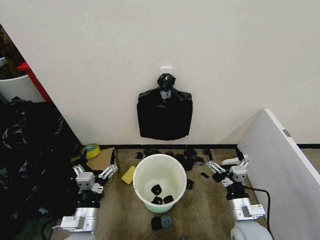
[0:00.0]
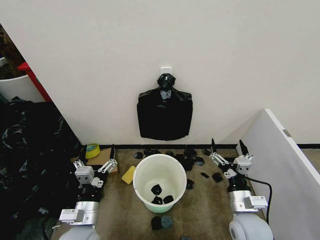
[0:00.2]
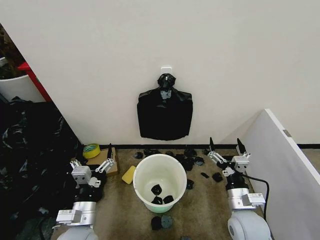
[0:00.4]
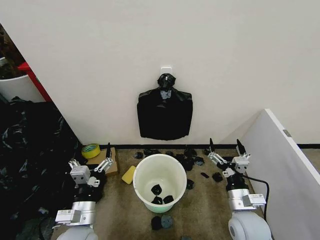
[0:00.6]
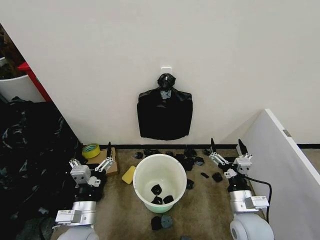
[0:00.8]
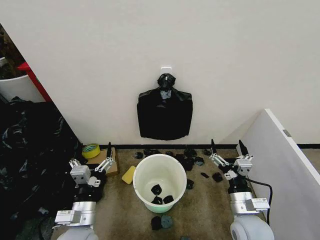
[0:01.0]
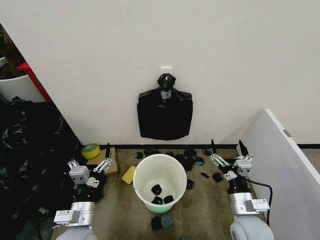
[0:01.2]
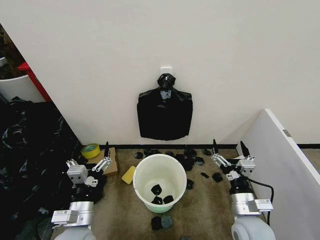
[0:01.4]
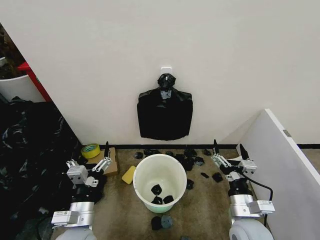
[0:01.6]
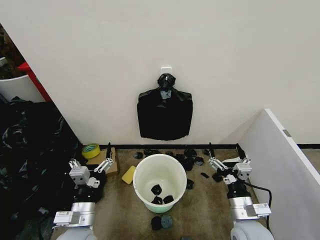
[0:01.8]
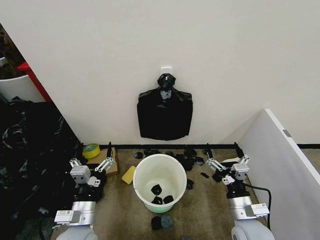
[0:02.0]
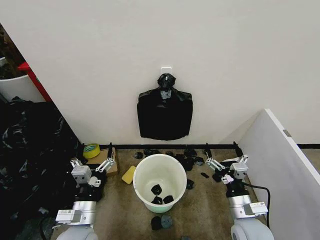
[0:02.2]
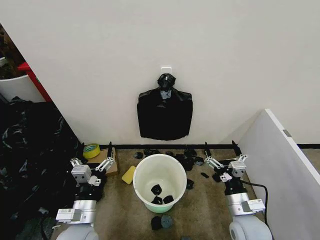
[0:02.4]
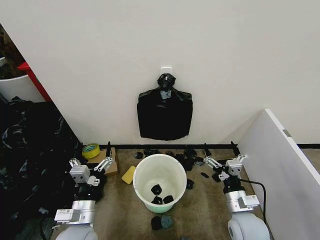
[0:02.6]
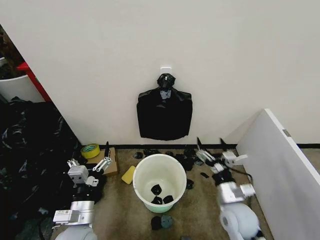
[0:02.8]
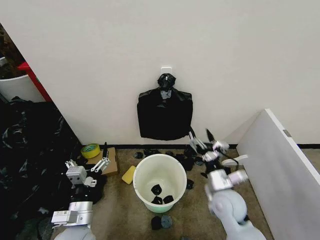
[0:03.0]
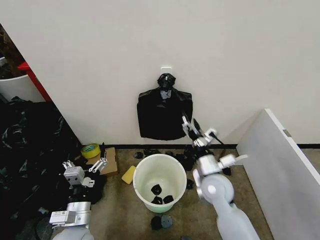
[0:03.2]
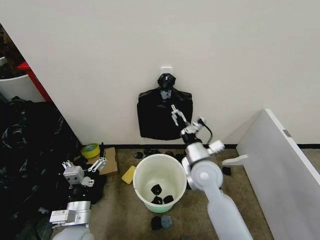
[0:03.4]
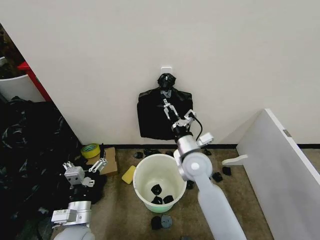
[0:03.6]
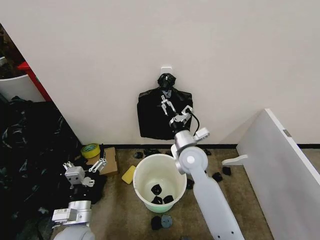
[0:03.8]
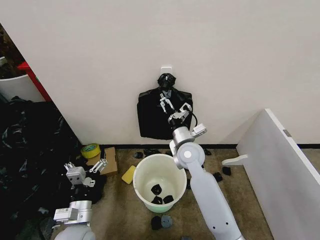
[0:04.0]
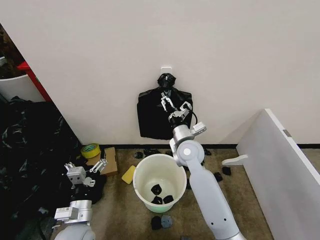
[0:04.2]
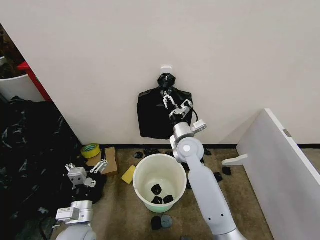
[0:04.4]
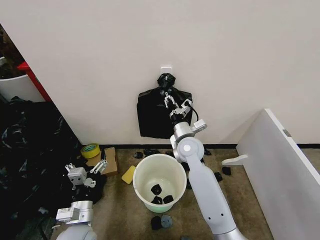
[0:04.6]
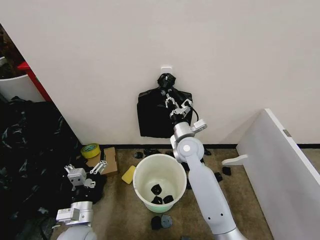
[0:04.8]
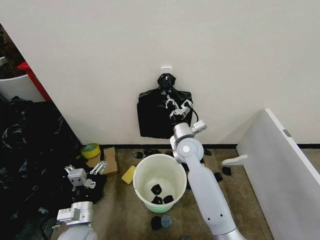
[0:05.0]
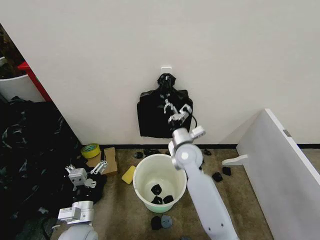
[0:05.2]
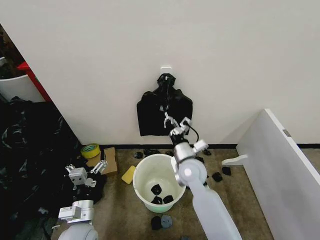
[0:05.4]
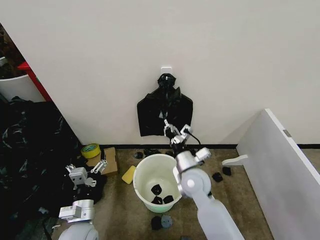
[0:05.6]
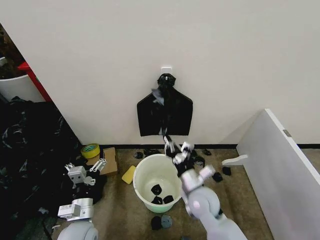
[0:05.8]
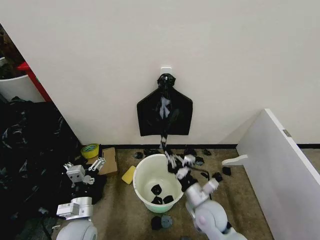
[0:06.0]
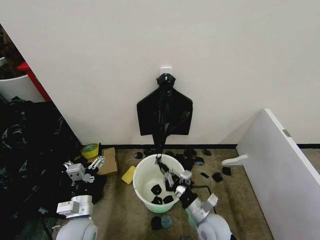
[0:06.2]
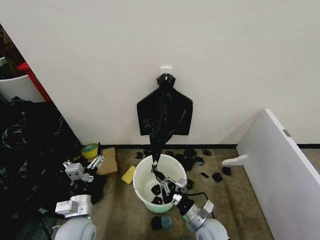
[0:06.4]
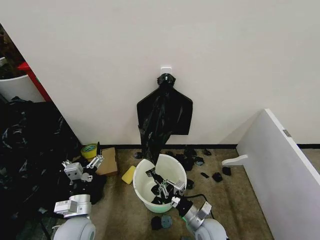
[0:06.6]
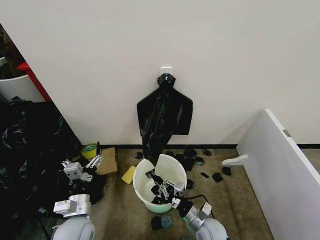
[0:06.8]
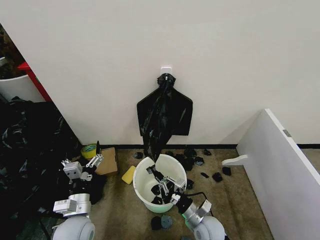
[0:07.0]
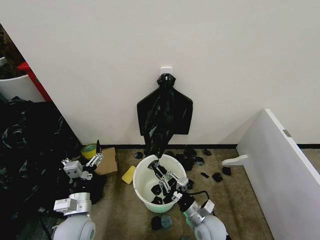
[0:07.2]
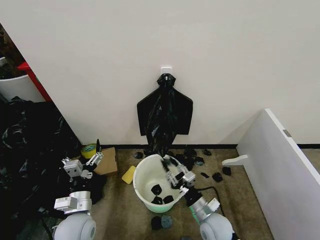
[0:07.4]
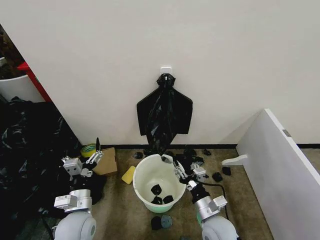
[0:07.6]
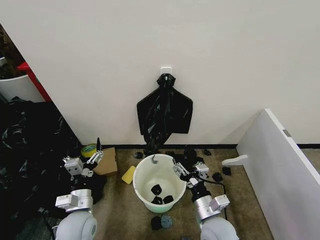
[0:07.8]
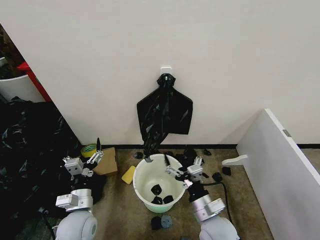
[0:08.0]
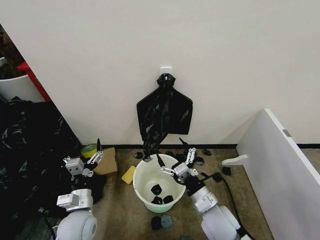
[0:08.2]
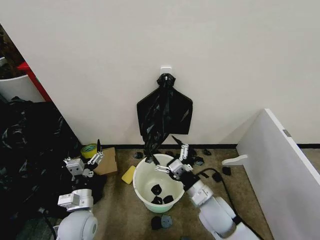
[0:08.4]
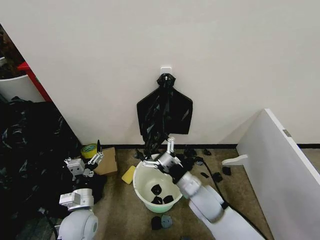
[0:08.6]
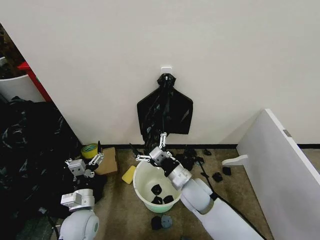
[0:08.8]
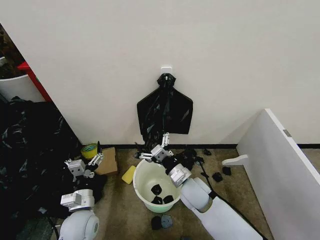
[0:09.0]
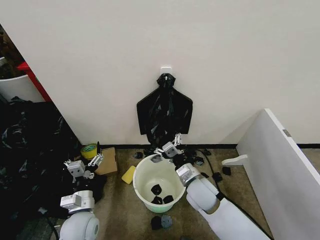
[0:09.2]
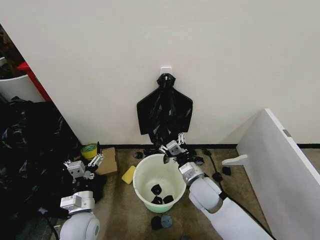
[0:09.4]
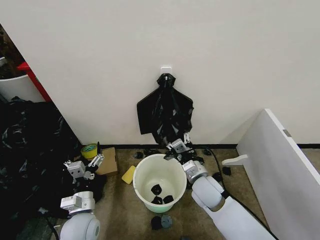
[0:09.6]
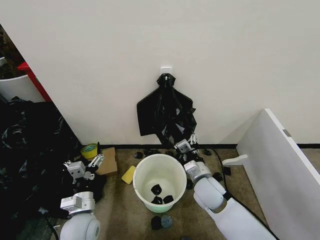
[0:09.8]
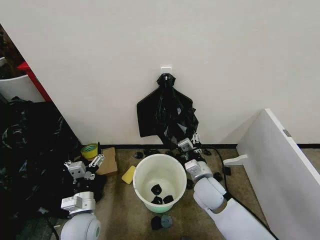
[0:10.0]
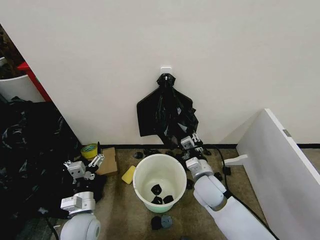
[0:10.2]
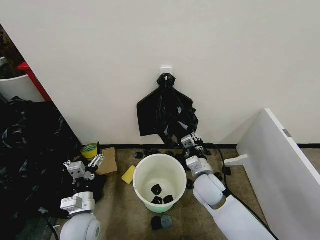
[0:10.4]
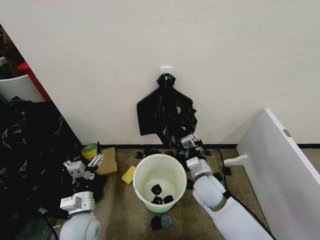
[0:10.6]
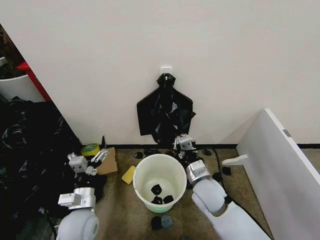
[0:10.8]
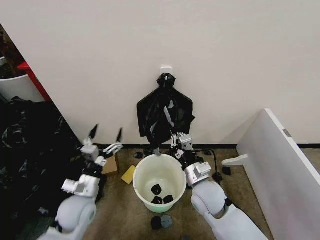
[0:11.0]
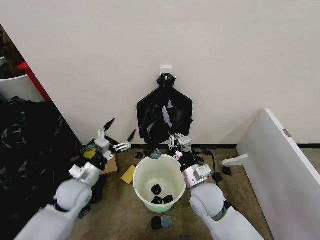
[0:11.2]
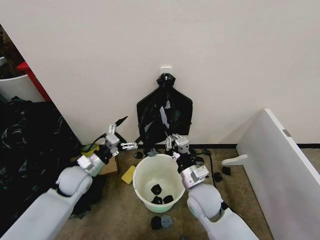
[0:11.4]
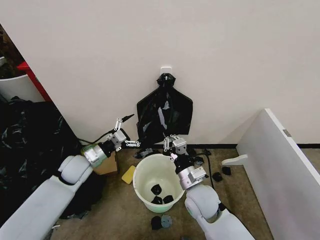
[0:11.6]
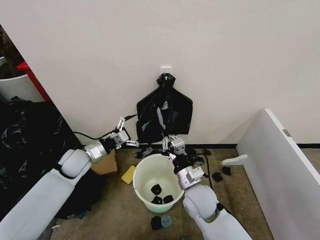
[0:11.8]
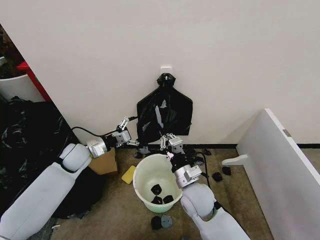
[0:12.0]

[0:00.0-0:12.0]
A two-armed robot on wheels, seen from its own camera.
Task of the whole recording: Place the garbage bag over the trash bin.
0:01.6 to 0:03.0: The right gripper shifts some 10 cm forward.
0:03.0 to 0:04.4: The right gripper is displaced forward, to the left and upward by some 20 cm, and closes its fingers.
0:04.4 to 0:06.0: The right gripper heads backward and downward, covering approximately 20 cm, and closes up.
0:06.0 to 0:07.6: The right gripper goes downward and returns, approximately 10 cm each way, and opens.
0:07.6 to 0:09.0: The right gripper goes some 15 cm forward, to the left and upward, and opens up.
0:09.0 to 0:10.4: The right gripper closes its fingers.
0:10.4 to 0:12.0: The right gripper moves roughly 5 cm; the left gripper heads forward, covering about 20 cm.

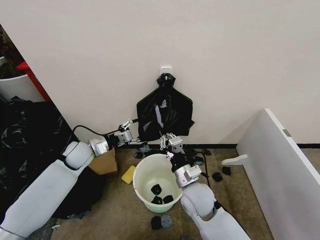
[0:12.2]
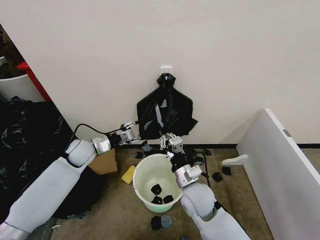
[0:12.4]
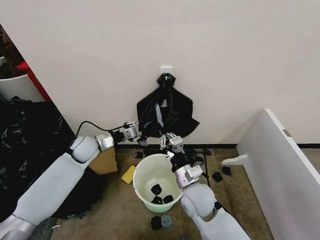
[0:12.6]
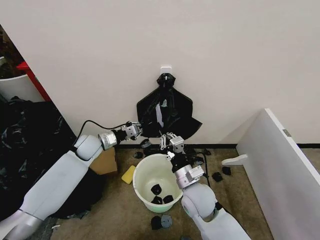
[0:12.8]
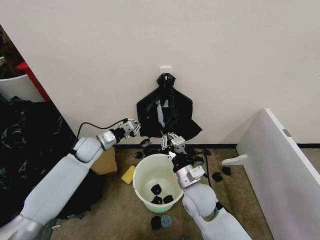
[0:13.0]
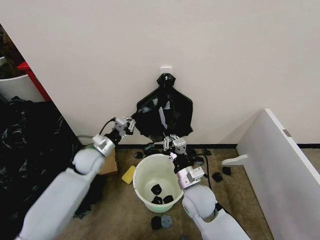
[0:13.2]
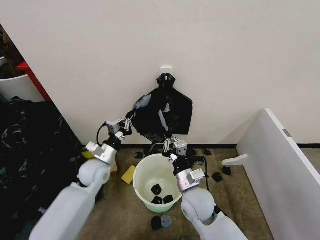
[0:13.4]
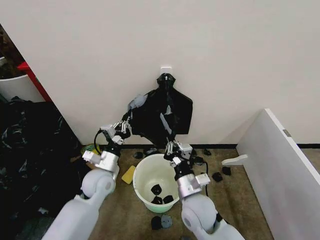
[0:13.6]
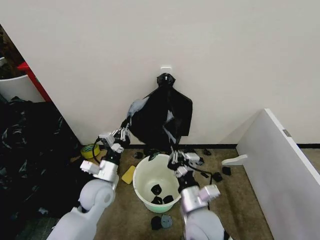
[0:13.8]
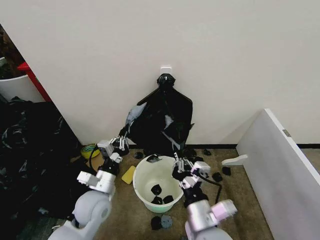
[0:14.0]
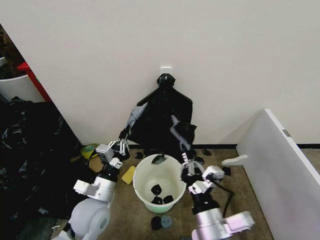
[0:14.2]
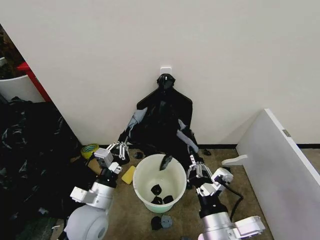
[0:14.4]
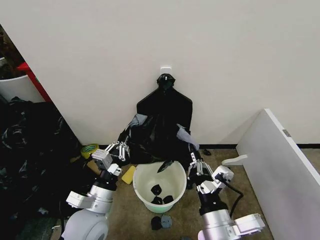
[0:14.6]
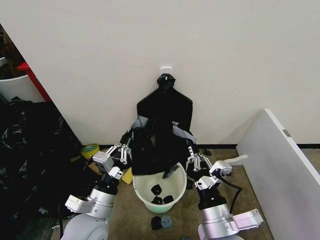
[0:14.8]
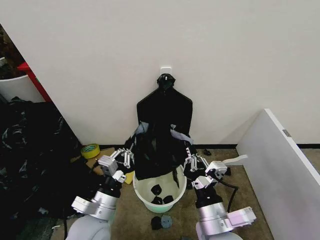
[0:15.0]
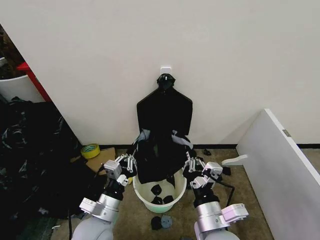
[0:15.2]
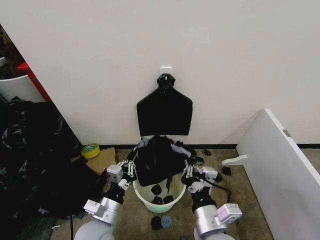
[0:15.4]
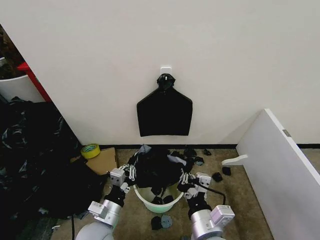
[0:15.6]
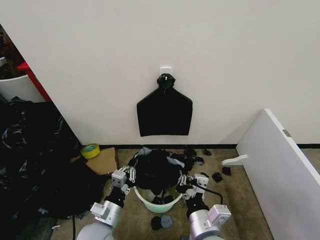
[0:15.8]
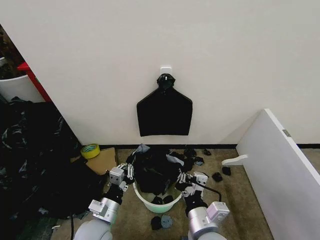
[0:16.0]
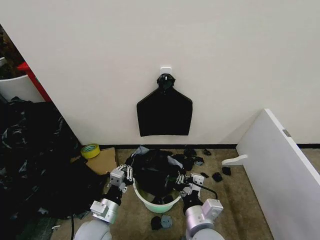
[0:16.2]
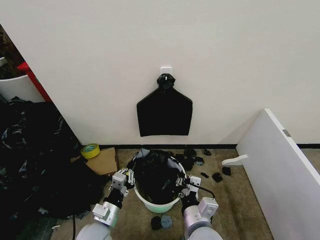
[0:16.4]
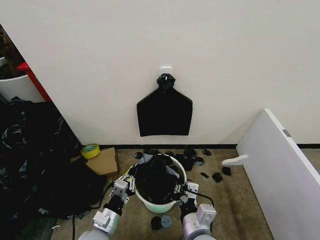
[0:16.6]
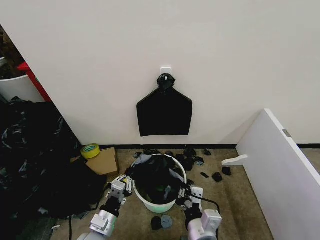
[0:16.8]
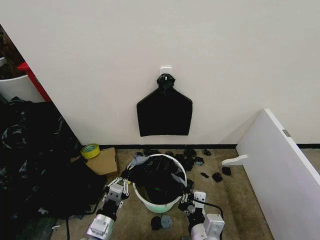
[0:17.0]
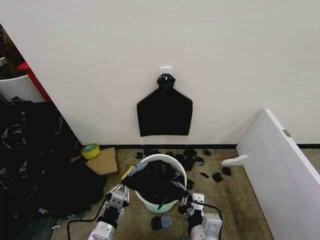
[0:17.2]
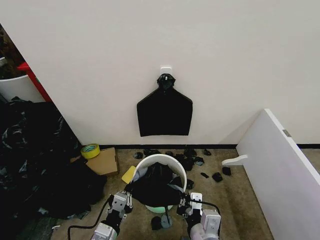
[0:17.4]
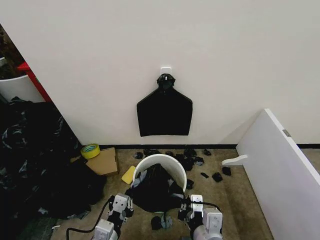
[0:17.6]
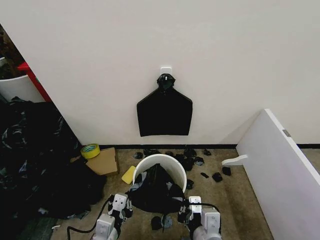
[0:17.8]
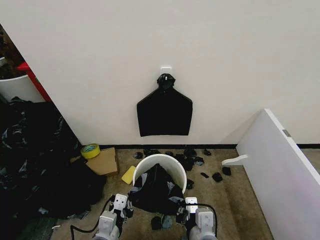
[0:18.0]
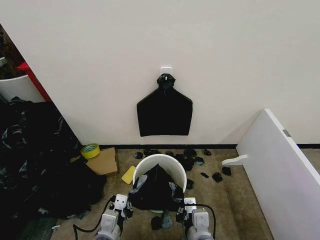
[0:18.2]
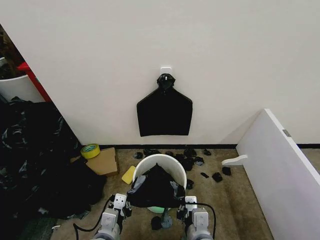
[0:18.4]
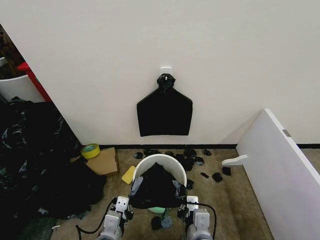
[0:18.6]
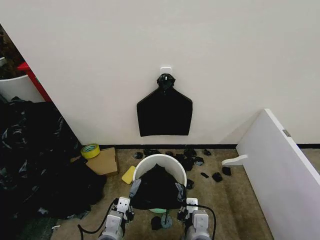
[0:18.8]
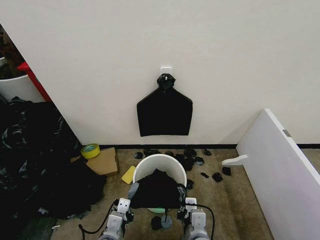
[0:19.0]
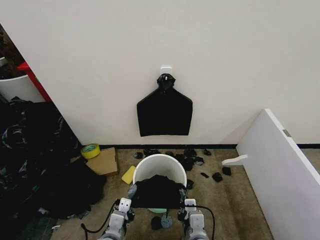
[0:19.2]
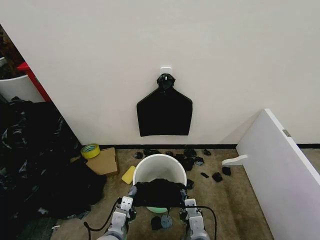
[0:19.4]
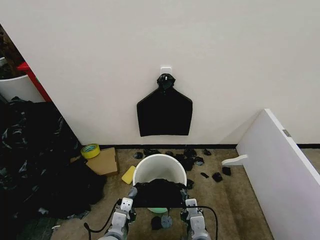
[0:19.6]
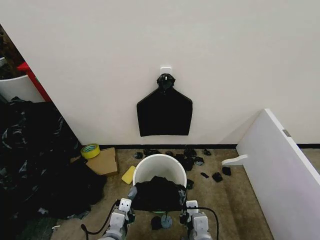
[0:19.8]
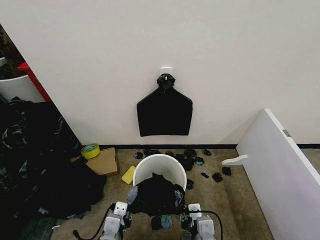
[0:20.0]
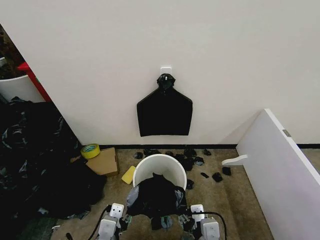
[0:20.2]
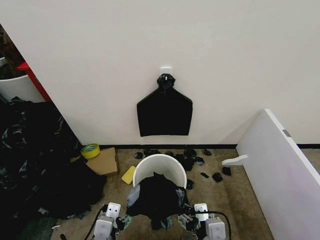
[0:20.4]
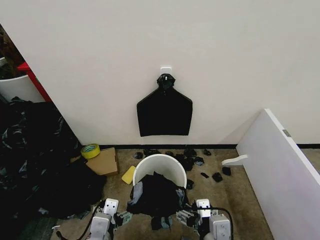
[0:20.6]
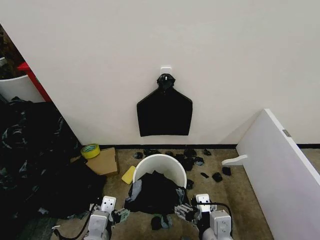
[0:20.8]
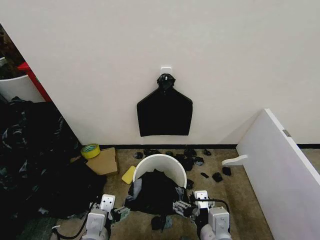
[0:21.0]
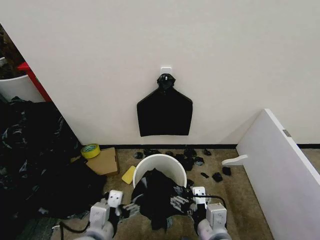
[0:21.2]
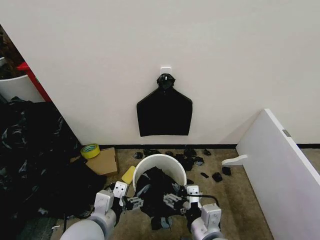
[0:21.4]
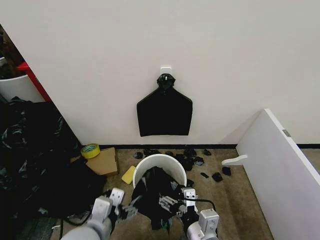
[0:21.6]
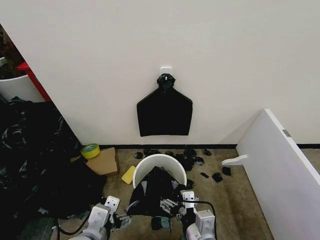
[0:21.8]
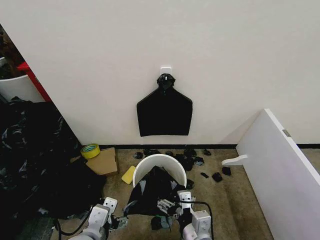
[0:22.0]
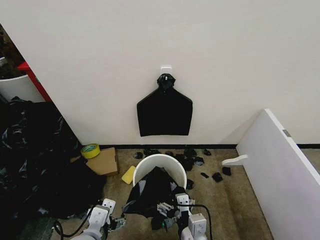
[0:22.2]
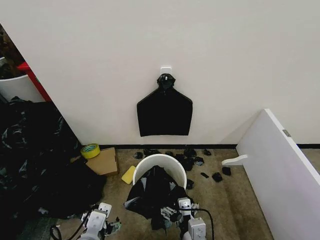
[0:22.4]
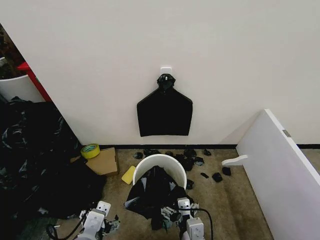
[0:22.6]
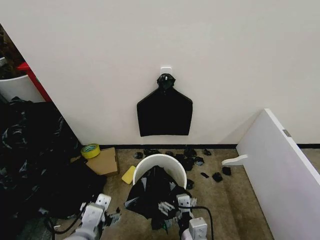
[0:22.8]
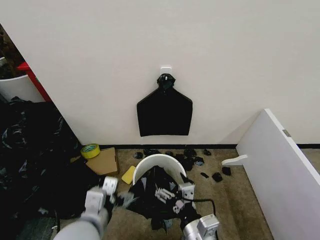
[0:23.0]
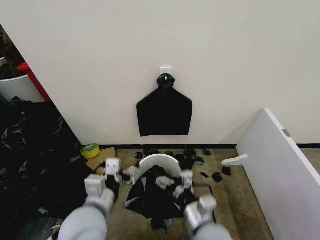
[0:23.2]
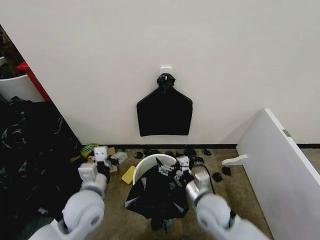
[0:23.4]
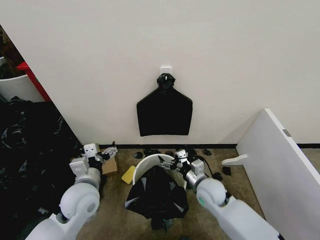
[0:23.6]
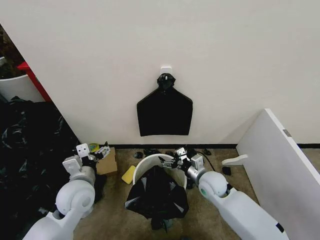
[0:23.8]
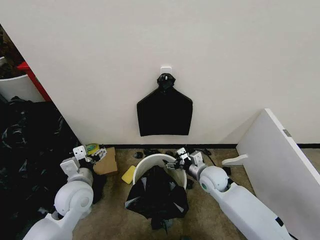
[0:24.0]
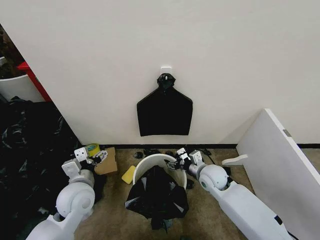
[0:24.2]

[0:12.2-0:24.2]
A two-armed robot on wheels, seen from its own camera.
Task of the whole recording: Place the garbage bag over the trash bin.
0:12.2 to 0:13.8: The left gripper goes approximately 15 cm backward and to the right, and closes. Meanwhile the right gripper travels backward by roughly 10 cm.
0:13.8 to 0:15.2: The left gripper is displaced backward by some 10 cm.
0:15.2 to 0:16.6: Both grippers move downward, some 5 cm.
0:16.6 to 0:18.2: The left gripper is displaced upward by about 5 cm.
0:18.2 to 0:19.8: The right gripper travels downward by some 5 cm.
0:19.8 to 0:21.2: Both grippers travel together upward, some 10 cm. The right gripper opens; the left gripper opens its fingers.
0:21.2 to 0:22.6: The right gripper goes approximately 10 cm downward.
0:22.6 to 0:24.2: The right gripper shifts roughly 25 cm forward; the left gripper is displaced forward and to the left by about 15 cm.
